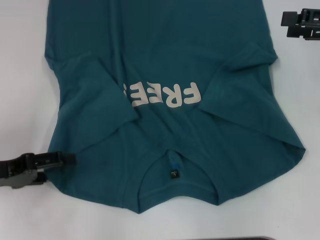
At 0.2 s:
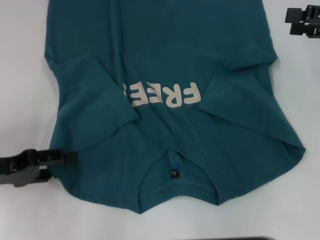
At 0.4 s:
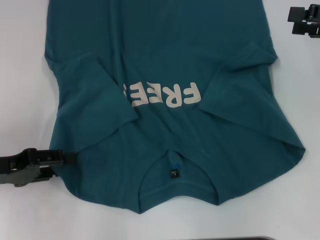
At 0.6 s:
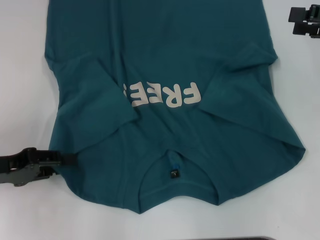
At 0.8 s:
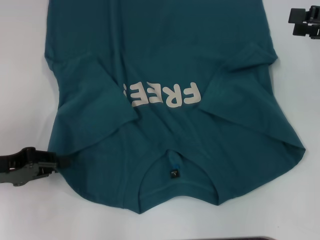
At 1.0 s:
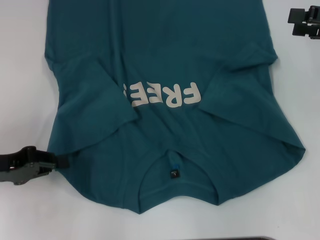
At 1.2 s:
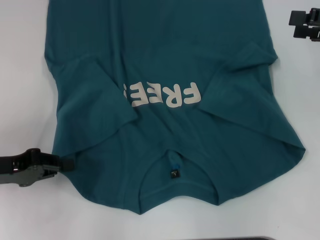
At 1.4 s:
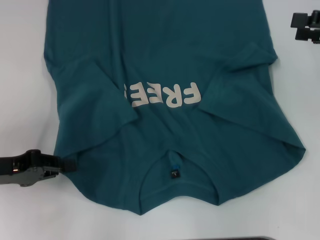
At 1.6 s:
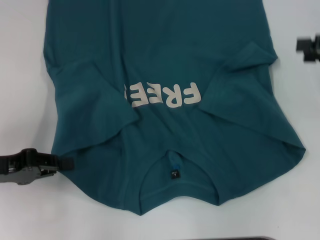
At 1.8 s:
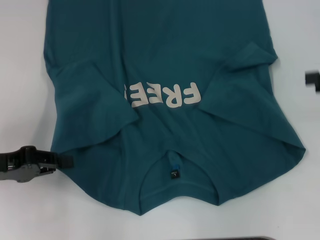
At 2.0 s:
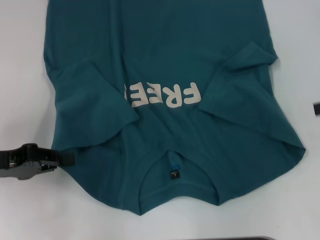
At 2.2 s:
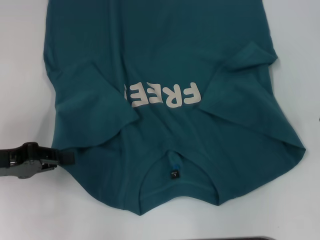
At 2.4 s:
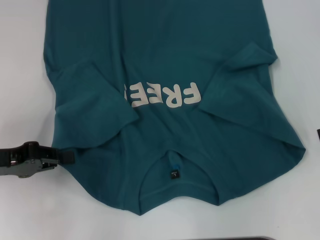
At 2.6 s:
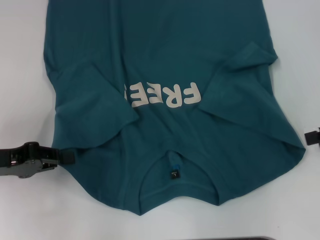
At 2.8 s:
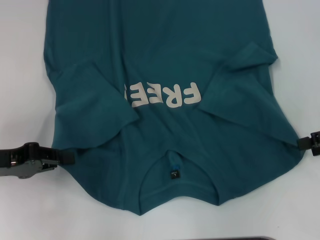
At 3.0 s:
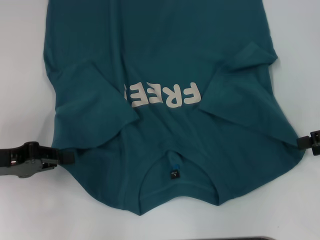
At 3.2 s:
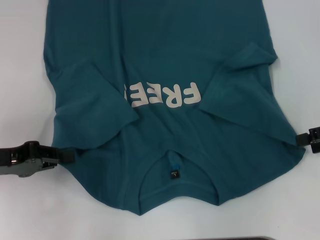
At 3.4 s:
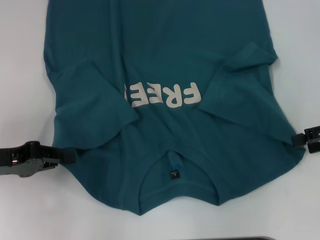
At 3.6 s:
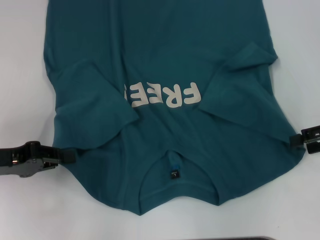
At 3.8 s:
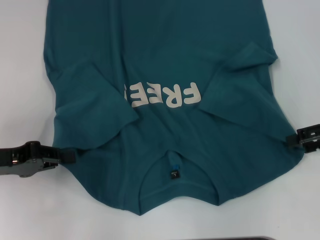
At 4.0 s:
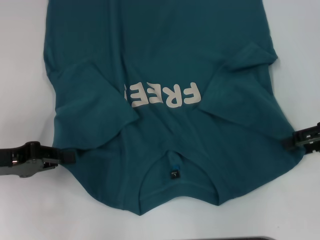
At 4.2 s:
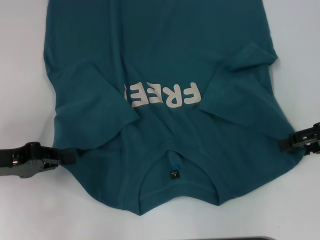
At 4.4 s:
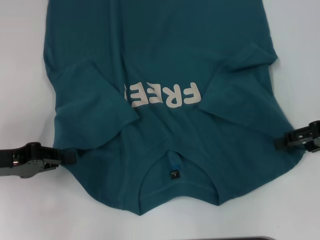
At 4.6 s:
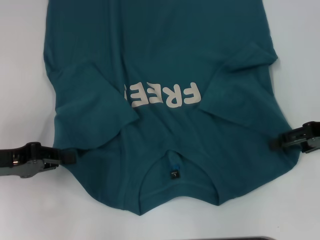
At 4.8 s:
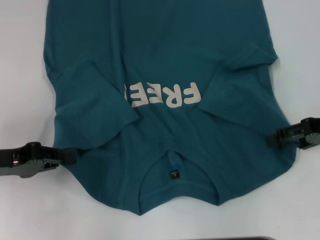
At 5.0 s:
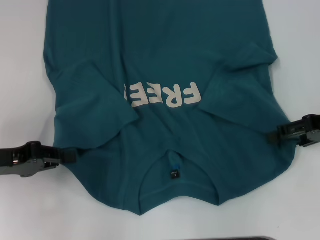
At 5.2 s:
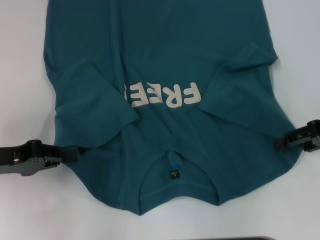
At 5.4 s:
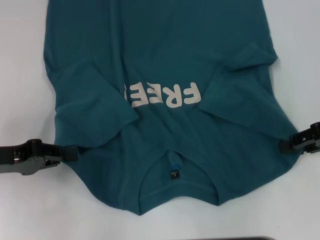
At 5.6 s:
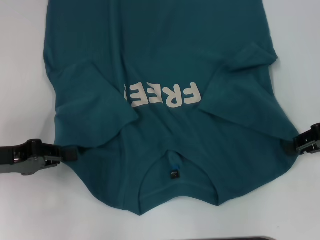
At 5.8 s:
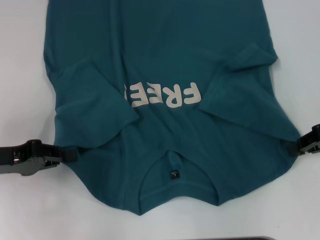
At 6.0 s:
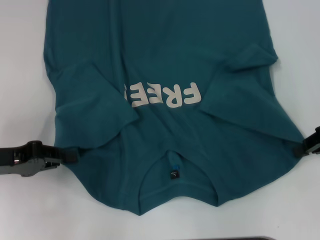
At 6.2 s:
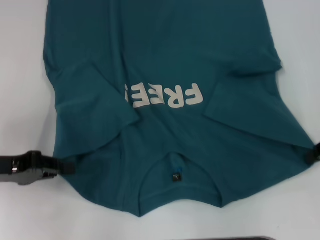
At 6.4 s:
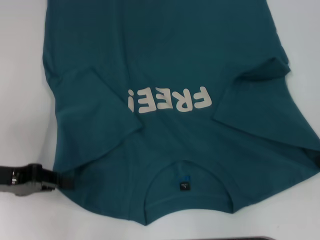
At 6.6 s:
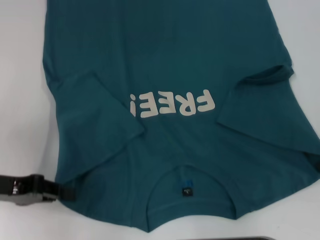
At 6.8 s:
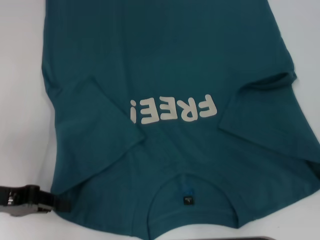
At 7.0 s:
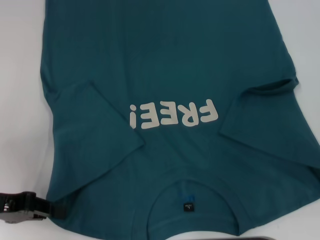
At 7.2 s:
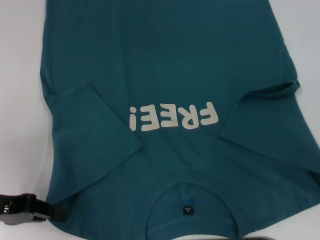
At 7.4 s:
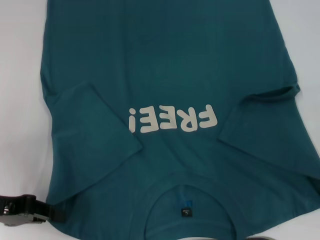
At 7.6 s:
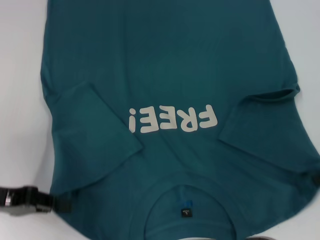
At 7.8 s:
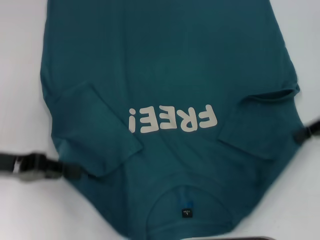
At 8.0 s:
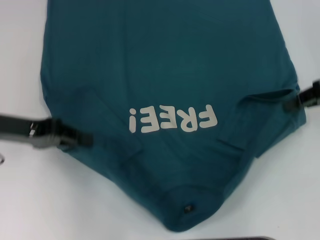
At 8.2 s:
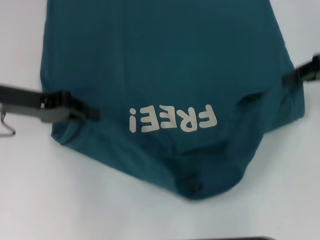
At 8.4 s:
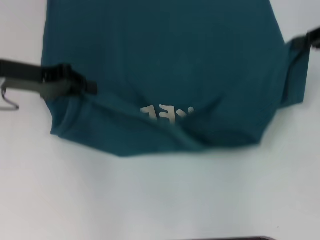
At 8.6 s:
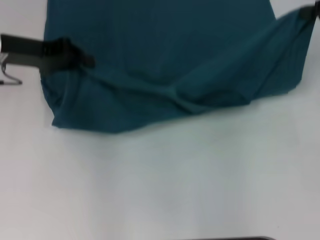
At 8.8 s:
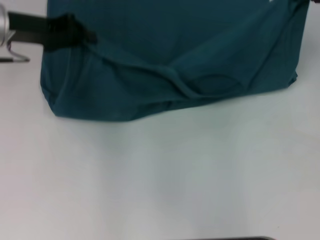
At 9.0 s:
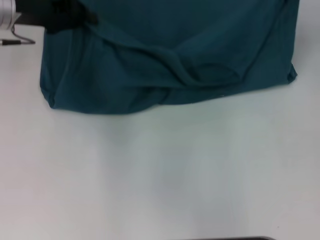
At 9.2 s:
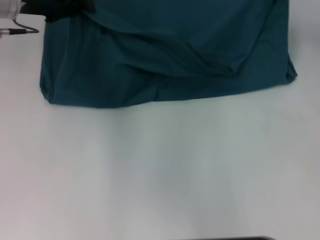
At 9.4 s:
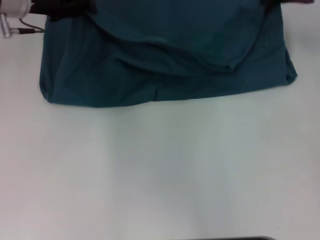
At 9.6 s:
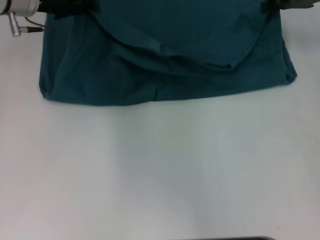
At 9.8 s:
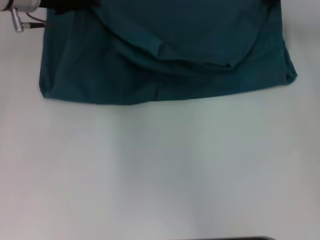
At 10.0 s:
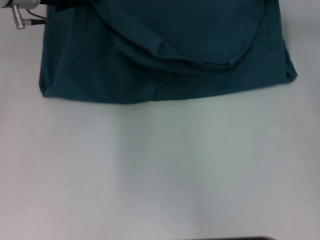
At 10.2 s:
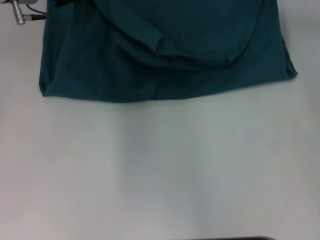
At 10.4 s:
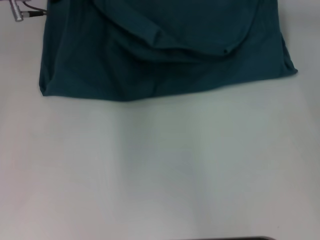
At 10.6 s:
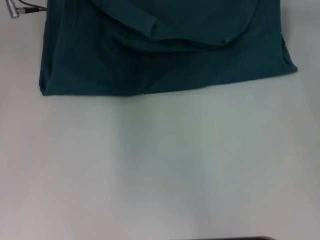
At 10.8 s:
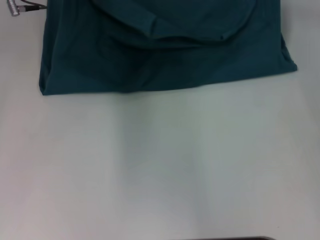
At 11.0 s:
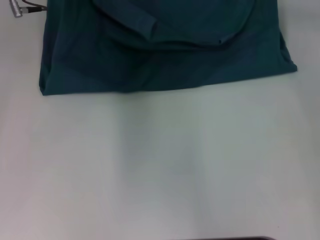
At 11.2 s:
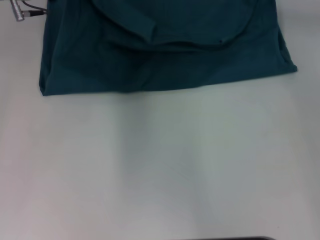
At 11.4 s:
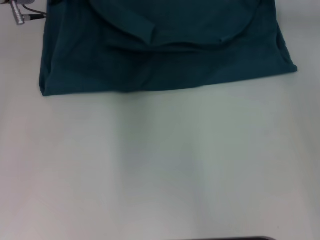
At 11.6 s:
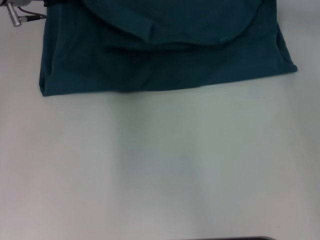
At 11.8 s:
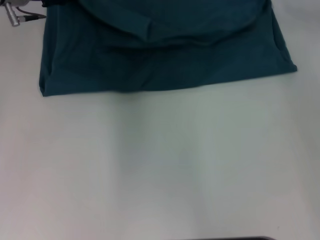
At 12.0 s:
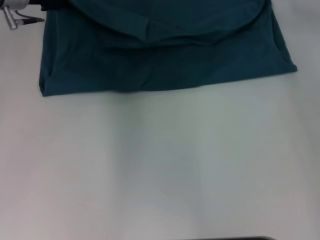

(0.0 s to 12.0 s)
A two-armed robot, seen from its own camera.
Step, 1.4 s - 5.8 s: Grab the bottom right corner with your right hand.
0.0 s - 1.6 s: The left gripper closes up.
1.6 s - 3.0 s: The right gripper ends up about 5 cm from where it was.
3.0 s - 4.4 s: The grippers make only small movements.
4.4 s - 6.0 s: The right gripper closes up.
7.6 s - 9.0 s: Both grippers move forward and upward, approximately 20 cm.
9.0 s - 10.4 s: The left gripper shifts by approximately 5 cm. The right gripper shifts approximately 10 cm forward and to the left.
10.4 s - 12.0 s: The left gripper opens up; the right gripper opens up.

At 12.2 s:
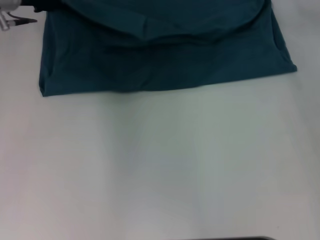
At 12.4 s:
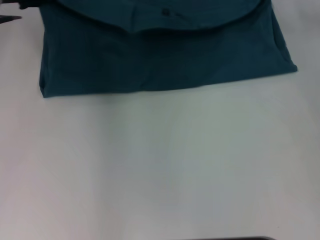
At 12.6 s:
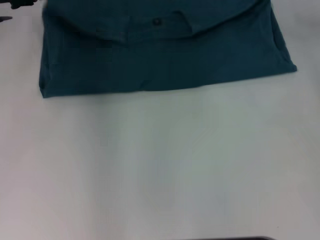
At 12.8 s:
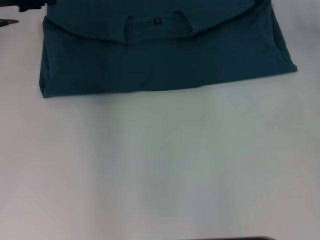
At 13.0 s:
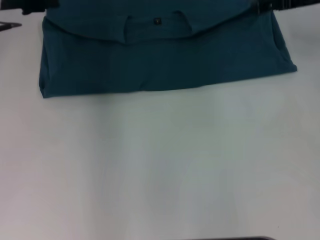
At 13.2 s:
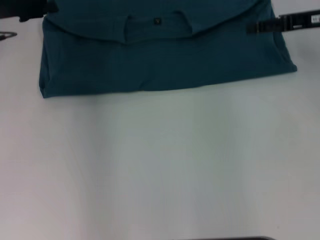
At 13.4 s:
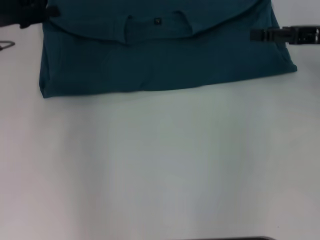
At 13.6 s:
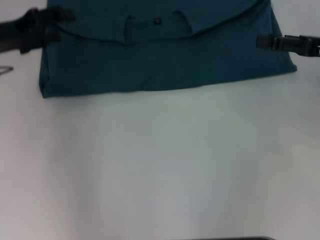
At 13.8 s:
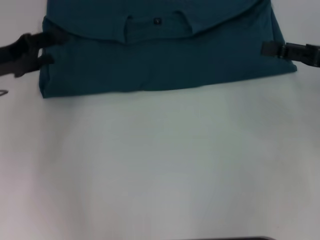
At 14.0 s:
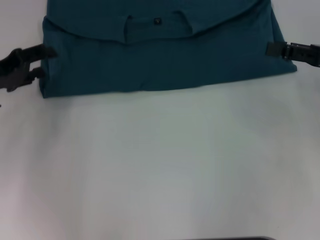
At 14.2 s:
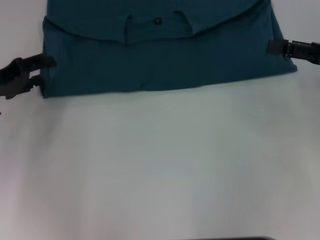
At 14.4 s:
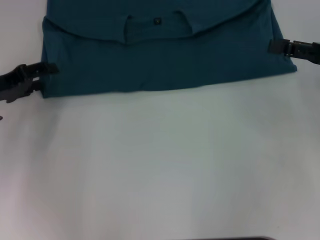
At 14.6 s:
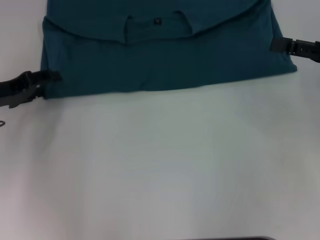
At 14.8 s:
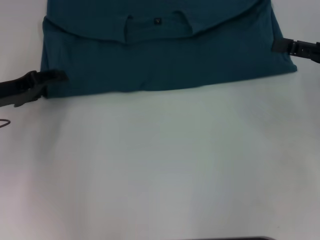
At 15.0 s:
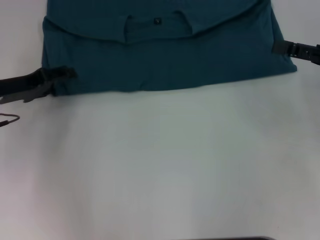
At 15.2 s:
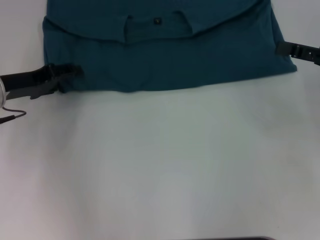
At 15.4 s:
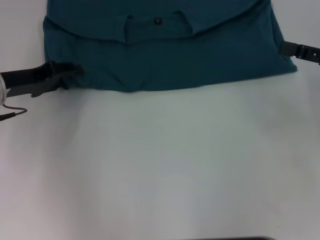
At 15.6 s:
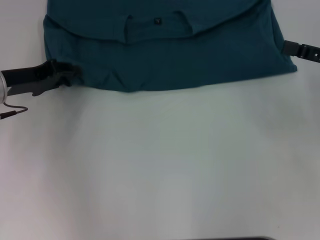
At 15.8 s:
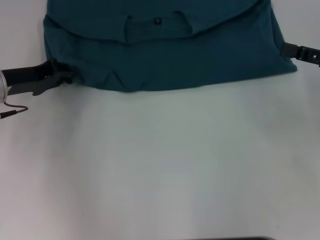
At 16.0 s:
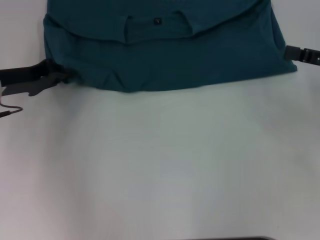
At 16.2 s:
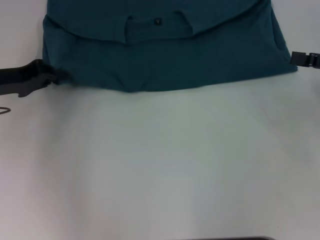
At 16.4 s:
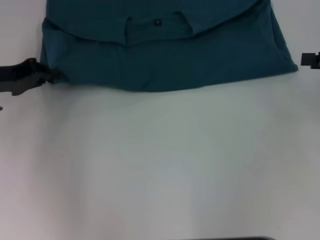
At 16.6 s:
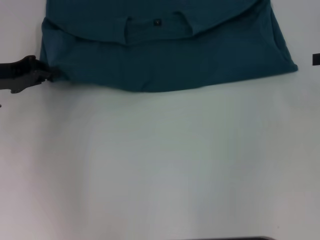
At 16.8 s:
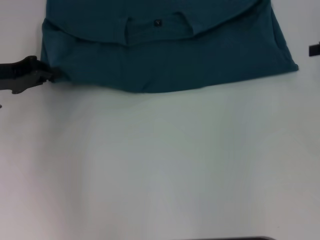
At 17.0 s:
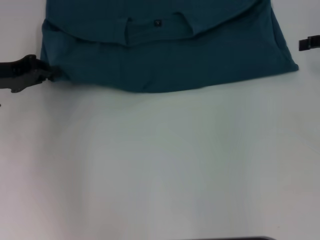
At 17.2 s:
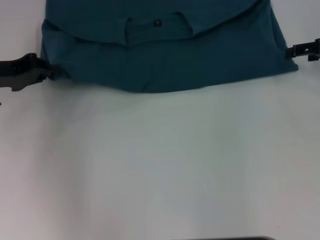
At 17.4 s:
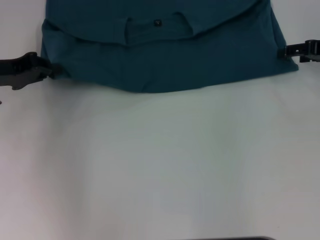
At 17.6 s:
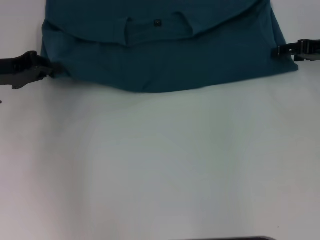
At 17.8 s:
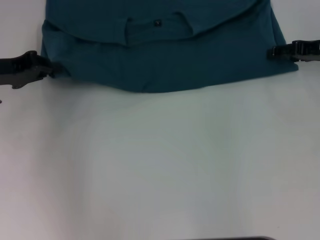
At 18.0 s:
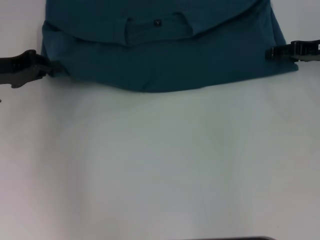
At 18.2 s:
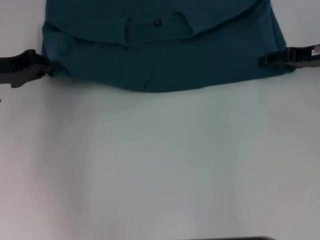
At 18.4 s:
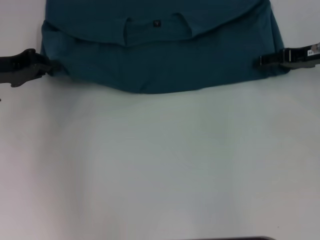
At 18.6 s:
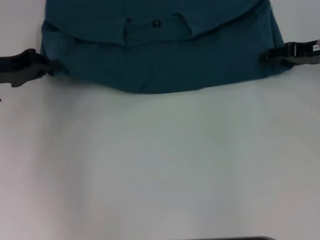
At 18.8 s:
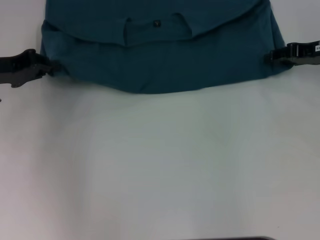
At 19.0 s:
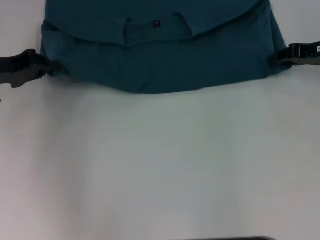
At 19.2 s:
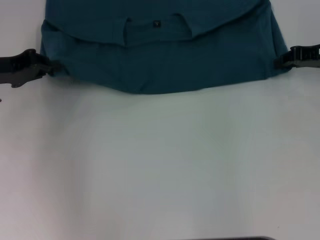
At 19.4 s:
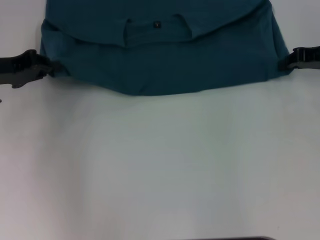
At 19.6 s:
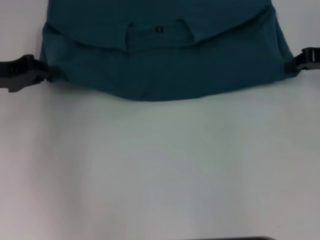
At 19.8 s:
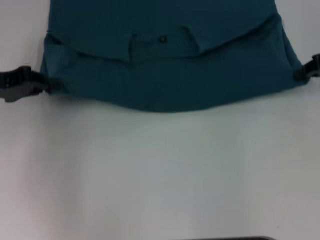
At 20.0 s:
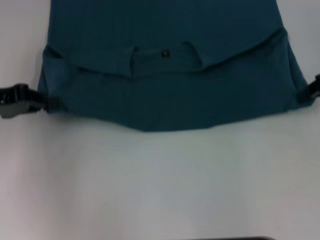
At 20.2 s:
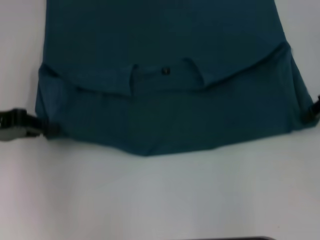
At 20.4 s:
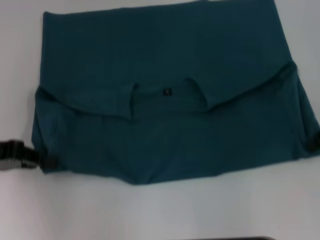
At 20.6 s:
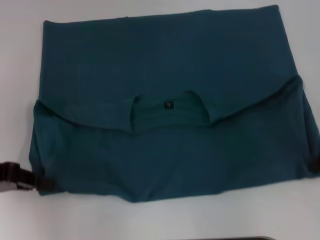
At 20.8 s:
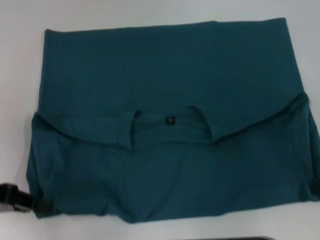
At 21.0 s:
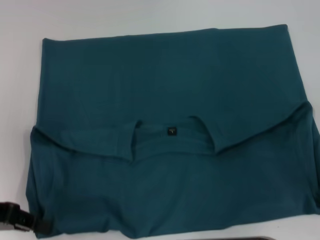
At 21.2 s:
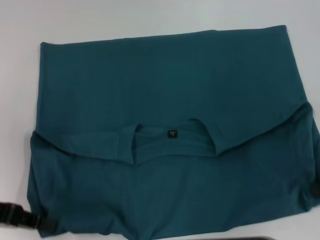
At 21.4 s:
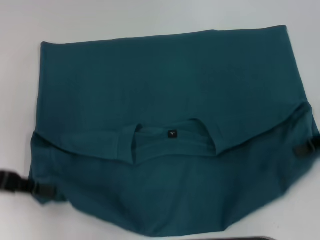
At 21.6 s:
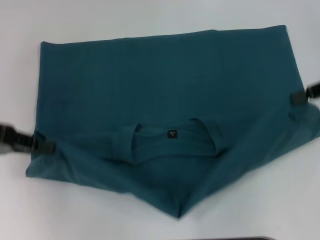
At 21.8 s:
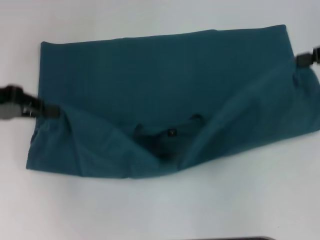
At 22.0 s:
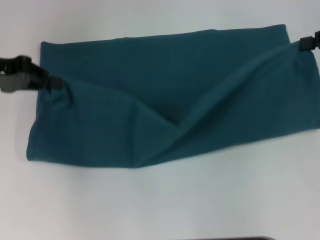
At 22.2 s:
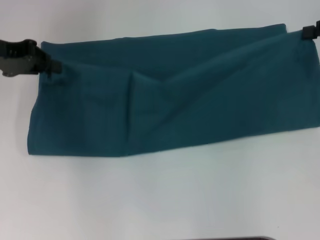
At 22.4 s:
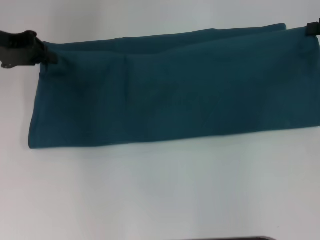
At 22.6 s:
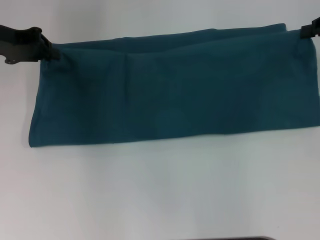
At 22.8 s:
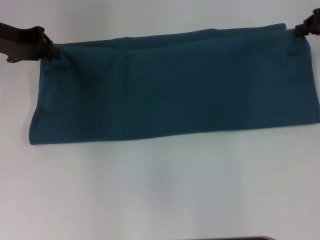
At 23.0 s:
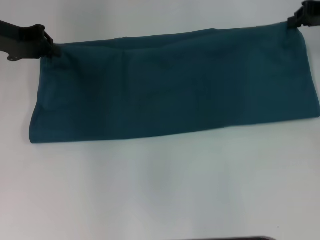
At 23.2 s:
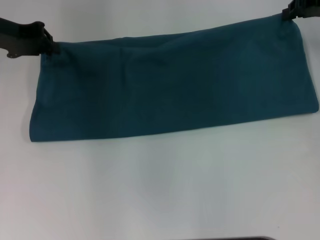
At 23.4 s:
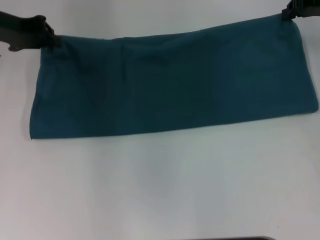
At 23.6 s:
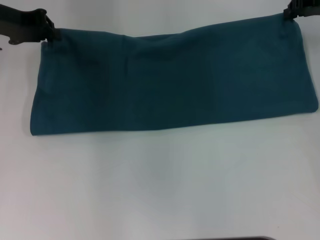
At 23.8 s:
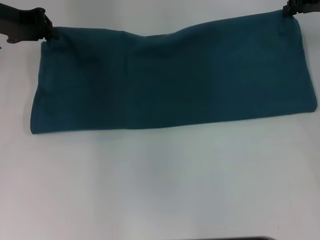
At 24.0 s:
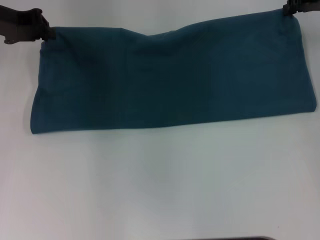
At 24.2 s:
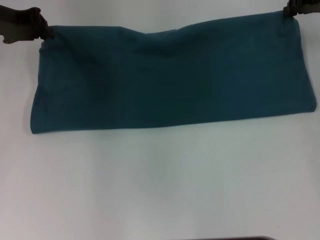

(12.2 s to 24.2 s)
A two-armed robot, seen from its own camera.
Step, 12.8 s - 21.0 s: Pull the clothes with your left hand.
Step, 12.8 s - 21.0 s: Pull the clothes with your right hand.
12.2 s - 13.8 s: The left gripper heads backward, to the left and downward, covering about 15 cm. Meanwhile the right gripper goes about 15 cm backward.
13.8 s - 15.2 s: The grippers make only small movements.
15.2 s - 16.6 s: The left gripper closes. The right gripper is displaced to the right by approximately 5 cm.
16.6 s - 18.2 s: The right gripper travels to the left, downward and forward by some 10 cm.
18.2 s - 19.8 s: The right gripper ends up some 5 cm from where it was, and closes up.
19.8 s - 21.2 s: The grippers both shift backward by approximately 10 cm.
21.2 s - 22.6 s: The left gripper is displaced forward by some 20 cm, while the right gripper travels forward and upward by some 15 cm.
22.6 s - 24.2 s: The right gripper is displaced to the left and forward by about 10 cm.
